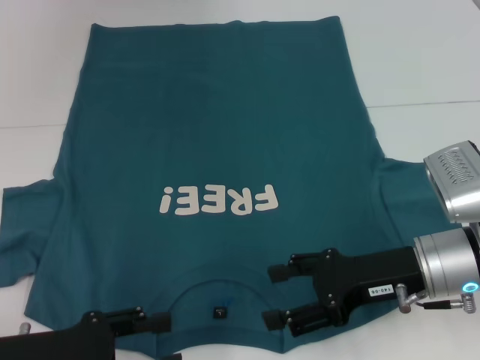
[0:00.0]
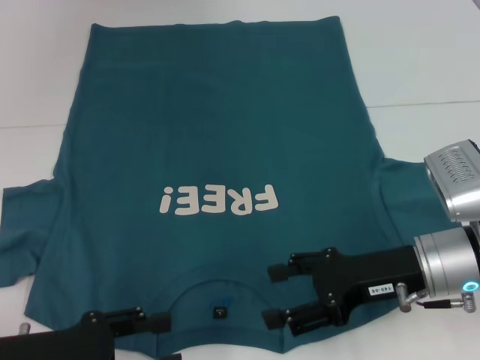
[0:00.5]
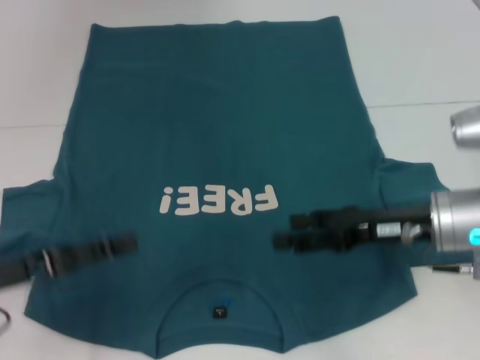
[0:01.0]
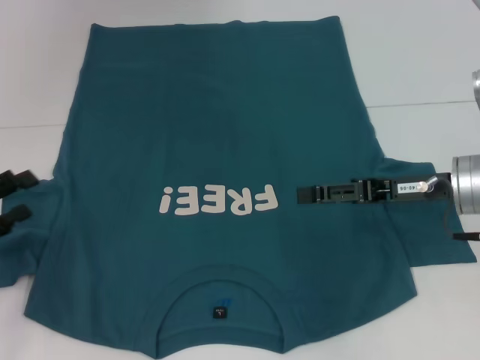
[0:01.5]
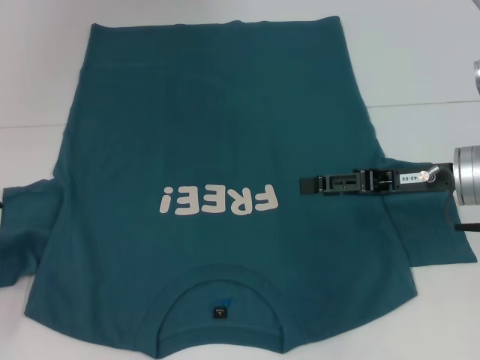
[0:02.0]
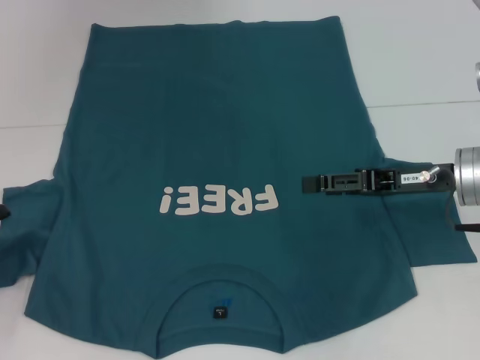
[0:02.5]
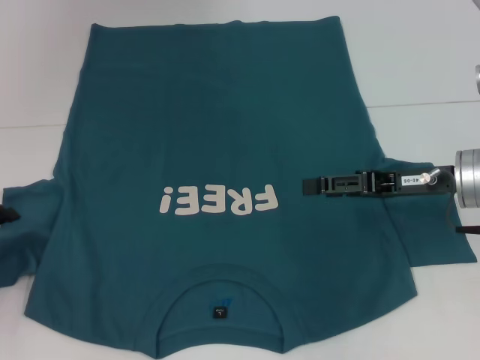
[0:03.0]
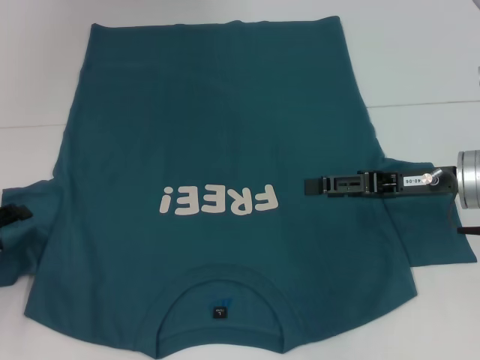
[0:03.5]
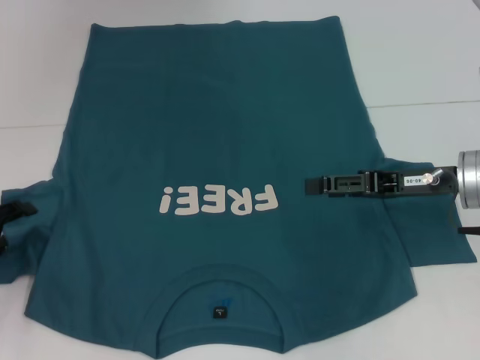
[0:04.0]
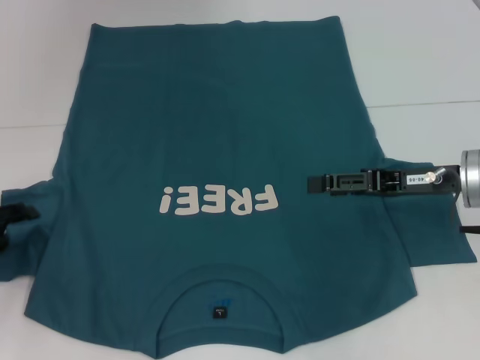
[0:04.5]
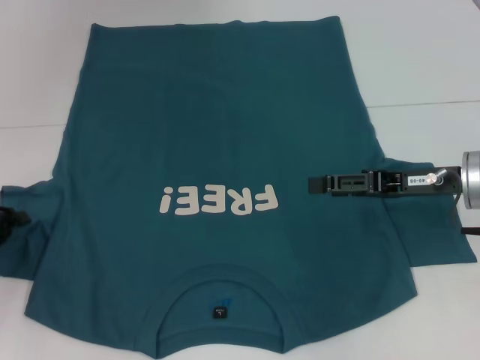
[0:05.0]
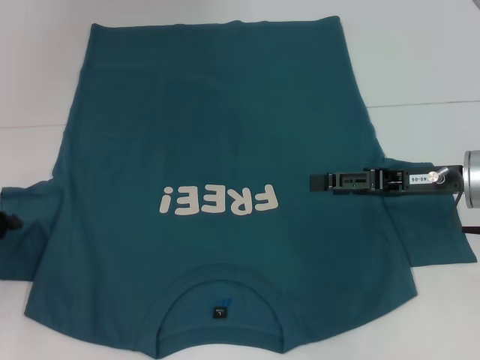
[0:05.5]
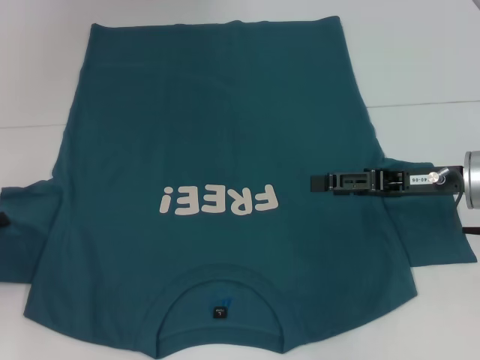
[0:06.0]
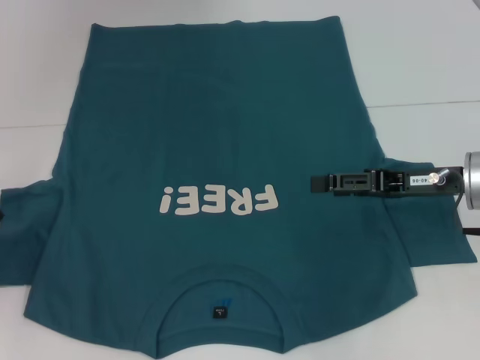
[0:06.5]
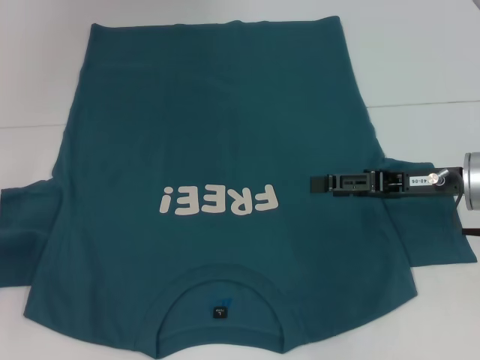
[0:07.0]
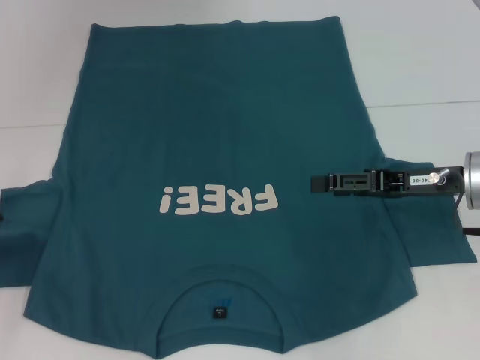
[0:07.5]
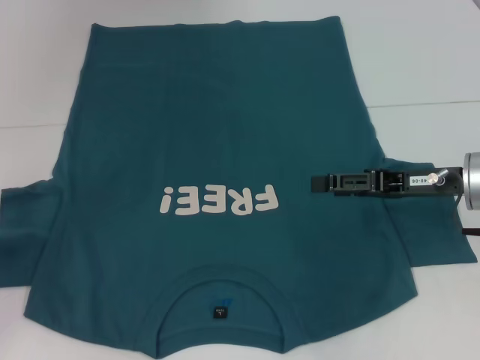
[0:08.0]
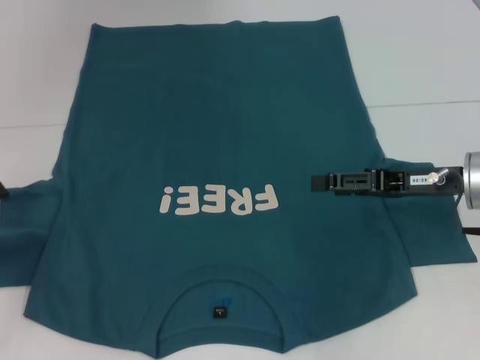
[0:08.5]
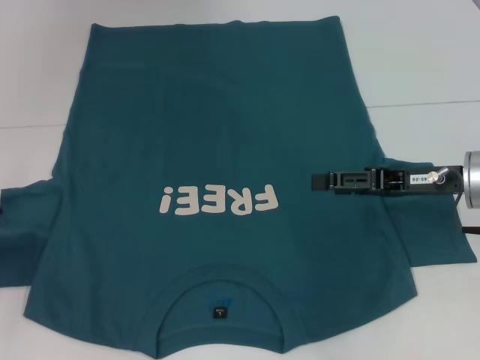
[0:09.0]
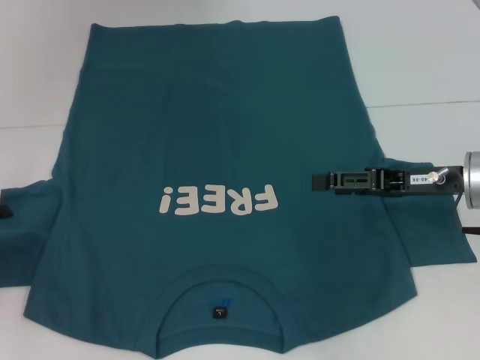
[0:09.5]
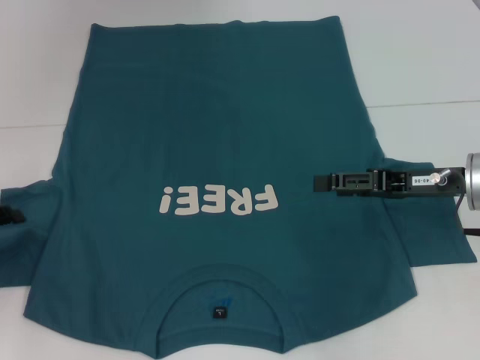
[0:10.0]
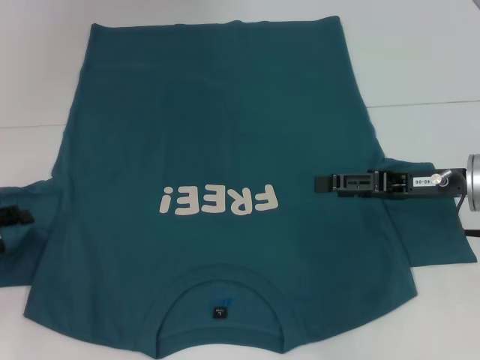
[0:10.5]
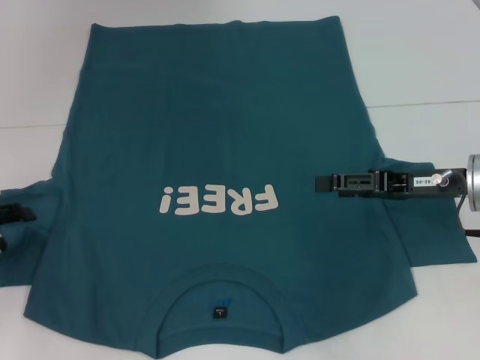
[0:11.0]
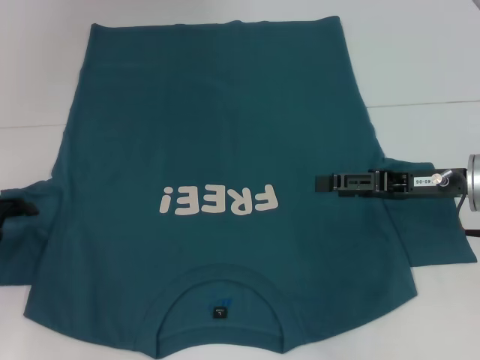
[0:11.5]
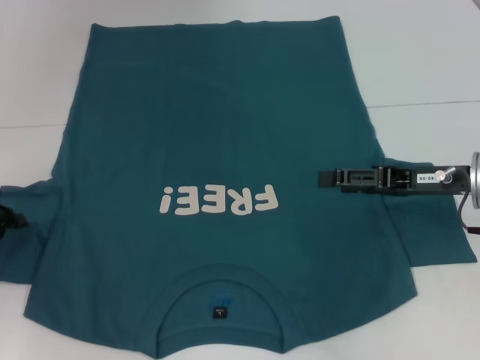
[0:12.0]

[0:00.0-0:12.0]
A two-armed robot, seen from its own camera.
0:00.0 to 0:02.0: The right gripper heads forward, covering roughly 5 cm. Meanwhile the left gripper travels to the left and forward by some 15 cm.
0:02.0 to 0:04.0: There are only small adjustments of the grippers.
0:04.0 to 0:06.0: The left gripper closes its fingers.

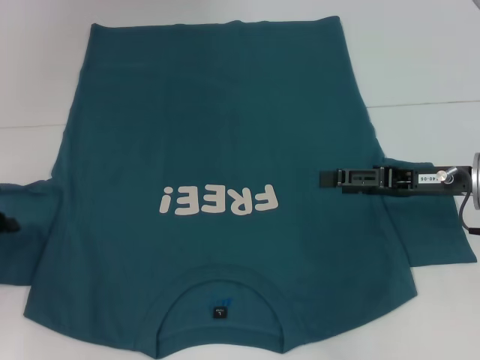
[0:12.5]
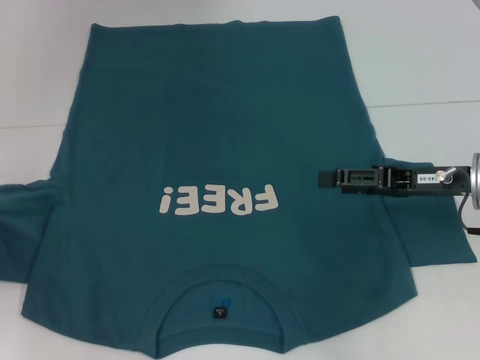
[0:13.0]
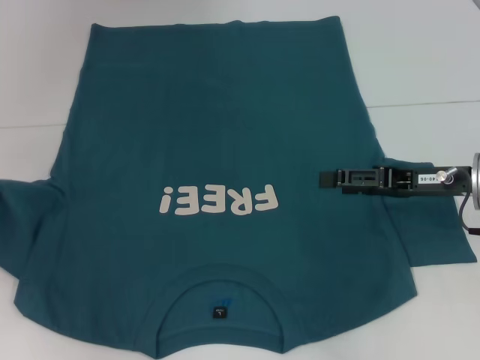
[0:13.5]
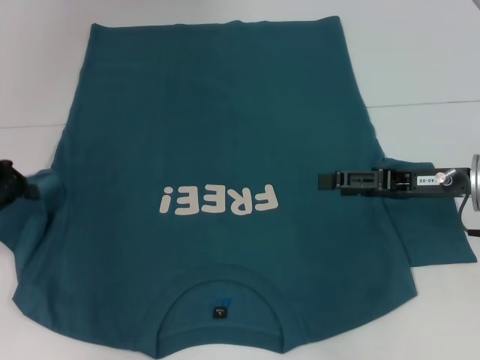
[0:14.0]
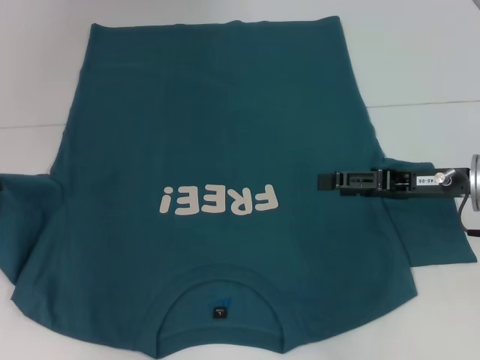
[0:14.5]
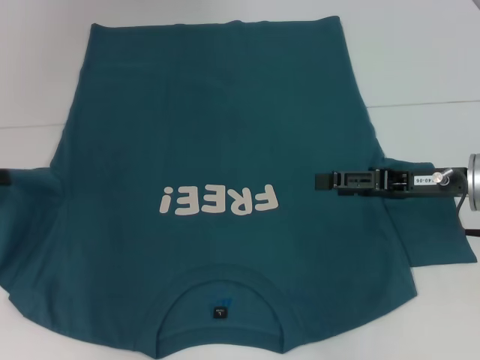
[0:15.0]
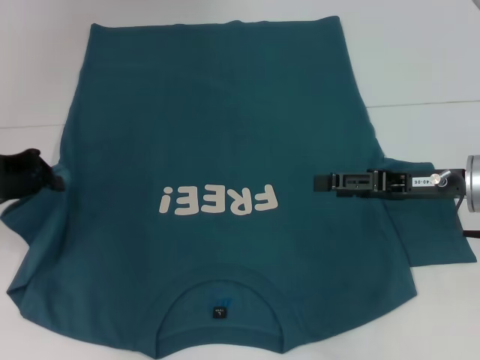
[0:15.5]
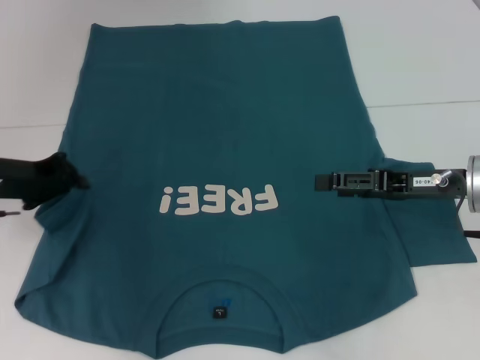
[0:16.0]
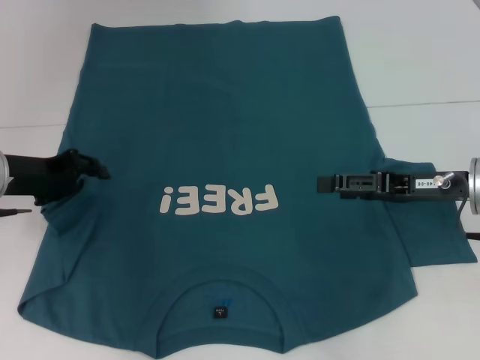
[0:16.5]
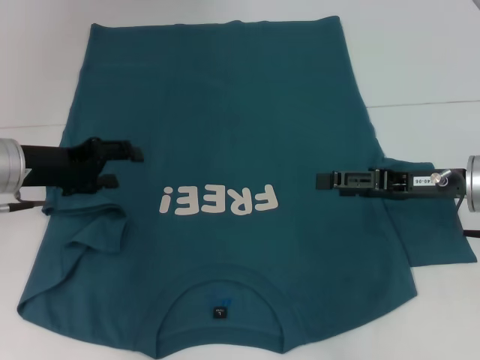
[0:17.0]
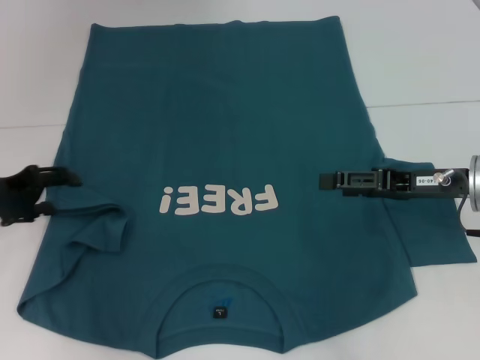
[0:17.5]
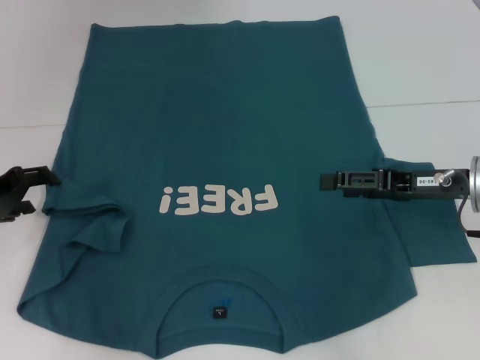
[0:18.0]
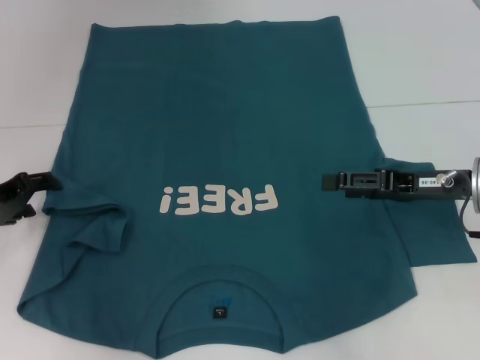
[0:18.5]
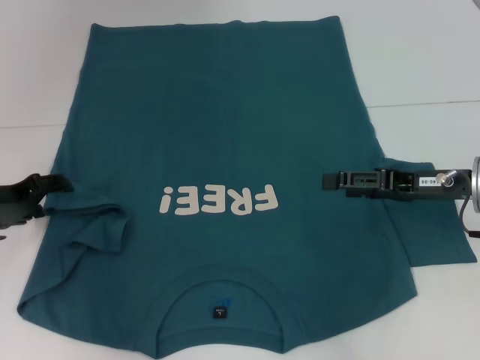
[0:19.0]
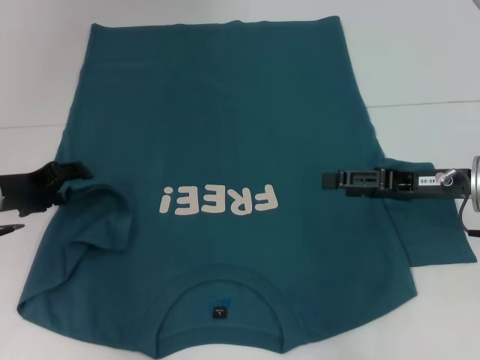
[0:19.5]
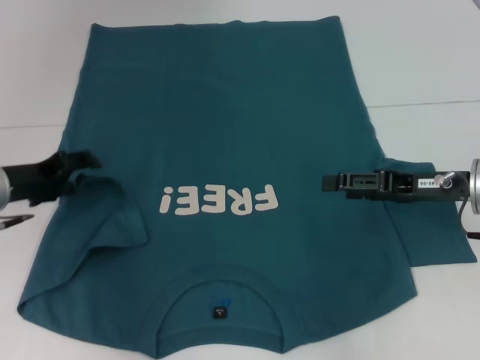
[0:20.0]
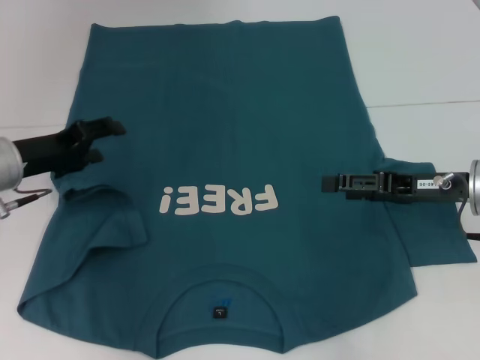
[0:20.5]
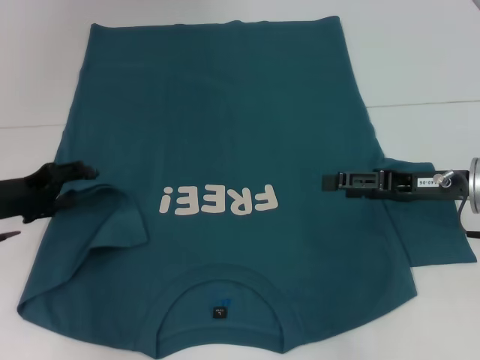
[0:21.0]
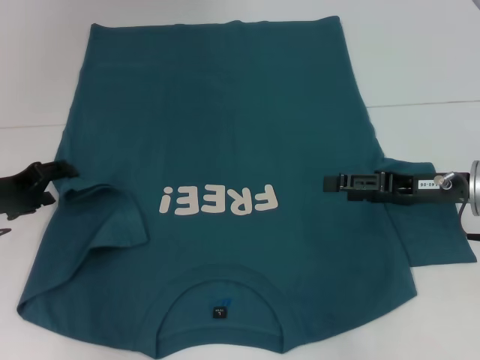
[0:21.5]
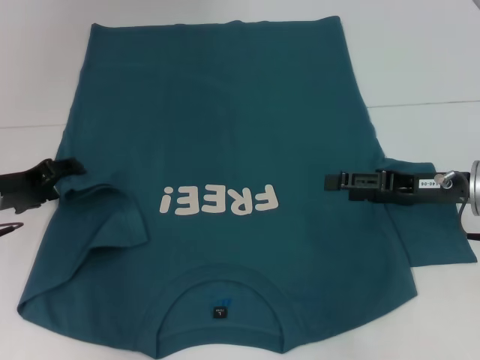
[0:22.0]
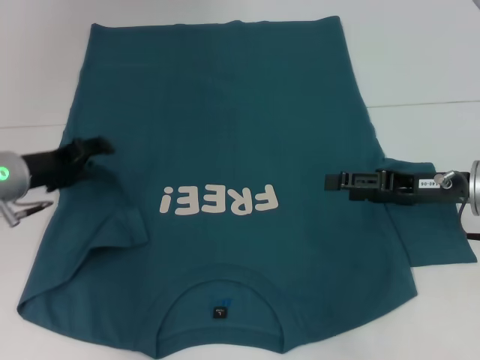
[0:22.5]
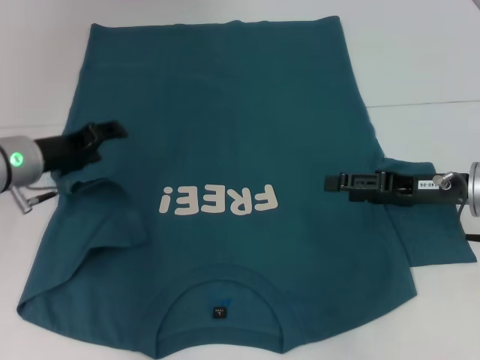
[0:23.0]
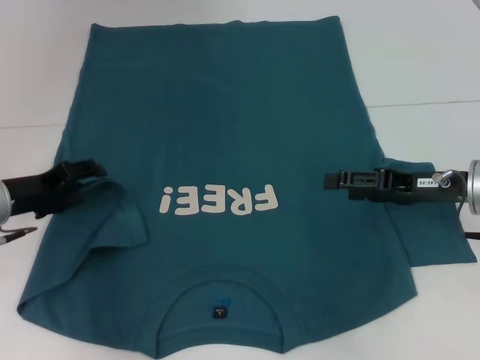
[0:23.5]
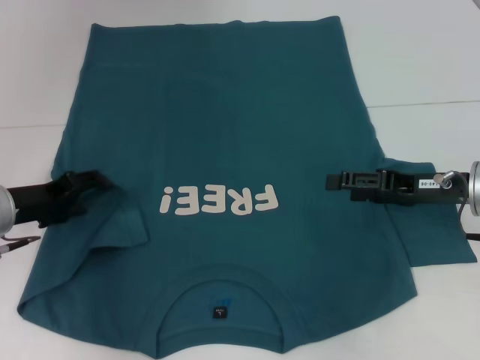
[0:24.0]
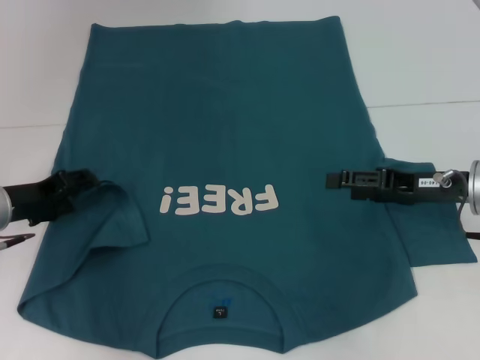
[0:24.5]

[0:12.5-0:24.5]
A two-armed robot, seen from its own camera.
0:12.5 to 0:14.5: The left gripper travels upward by approximately 10 cm.
0:14.5 to 0:16.5: The left gripper heads to the right, covering some 10 cm.
0:16.5 to 0:18.5: The left gripper moves about 5 cm, and opens up.
0:18.5 to 0:20.5: The left gripper moves to the right, roughly 5 cm.
0:20.5 to 0:24.5: The grippers stay close to where they were, moving slightly.

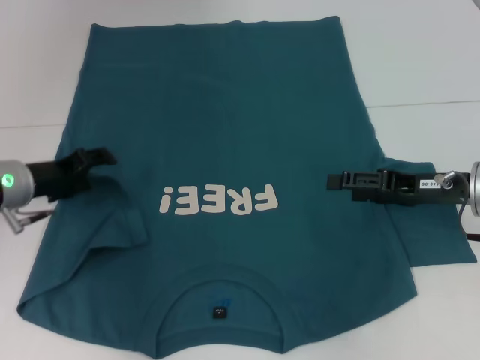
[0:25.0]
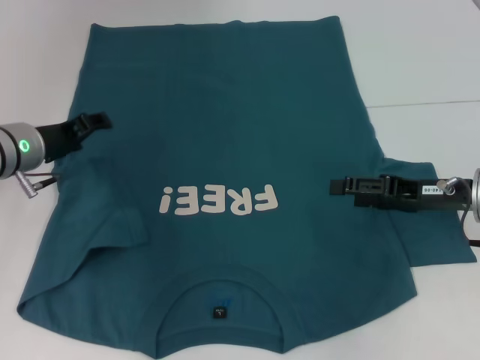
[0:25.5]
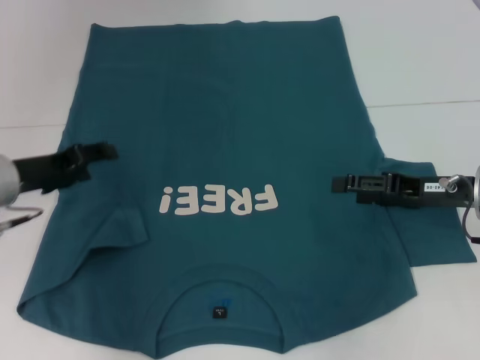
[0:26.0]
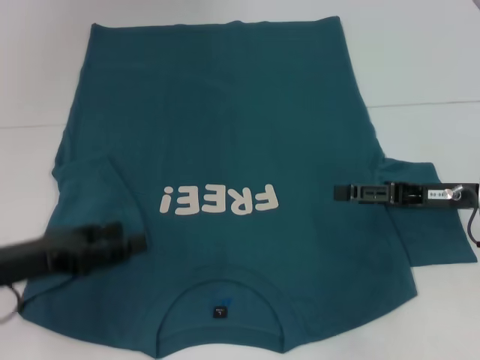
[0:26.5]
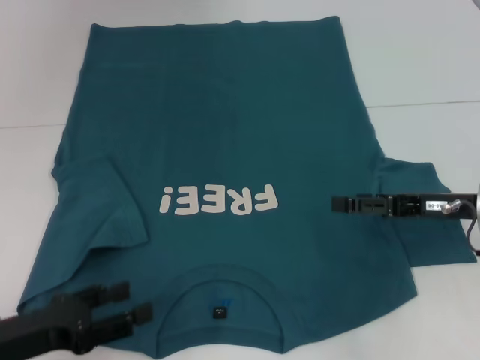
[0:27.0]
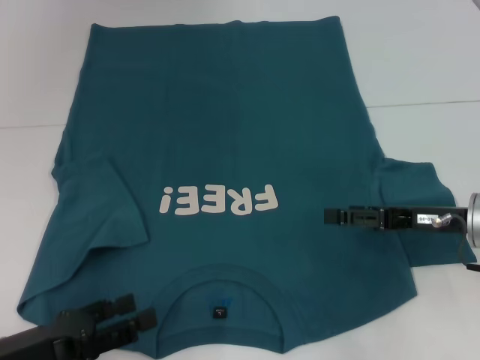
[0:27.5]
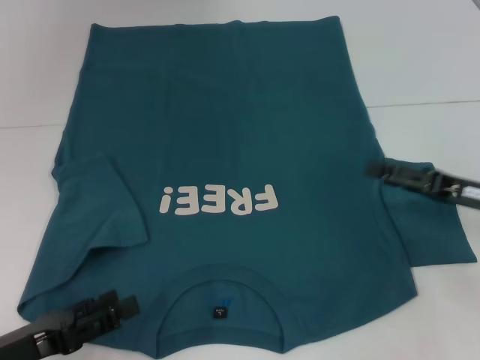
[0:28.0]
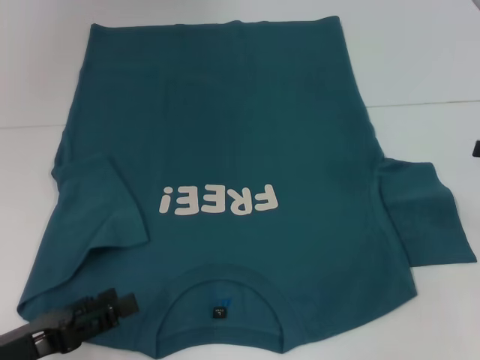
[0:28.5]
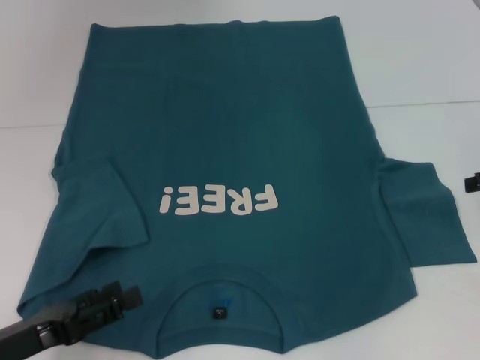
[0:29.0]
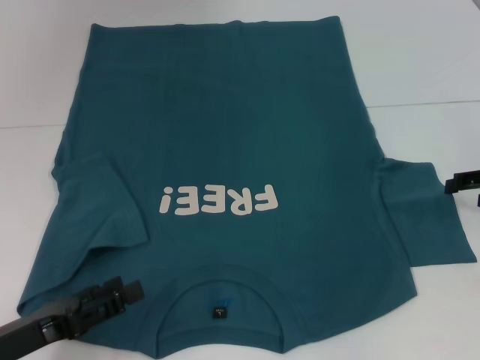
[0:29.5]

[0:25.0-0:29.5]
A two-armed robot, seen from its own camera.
0:25.0 to 0:27.0: The left gripper goes about 20 cm backward.
0:27.0 to 0:29.5: The right gripper heads to the right, covering some 10 cm.
